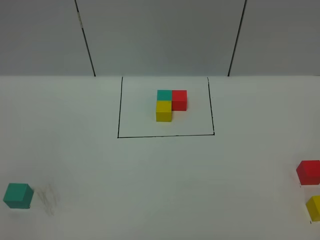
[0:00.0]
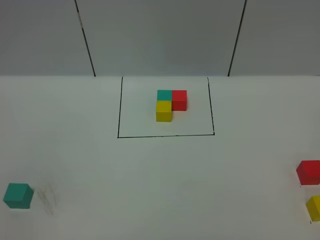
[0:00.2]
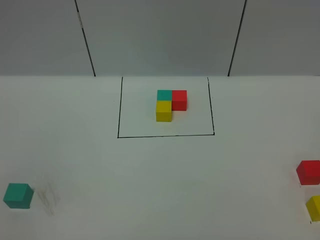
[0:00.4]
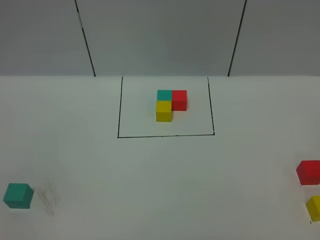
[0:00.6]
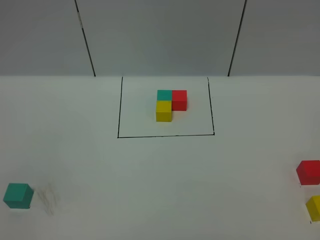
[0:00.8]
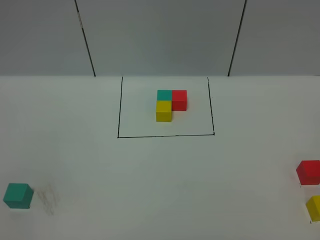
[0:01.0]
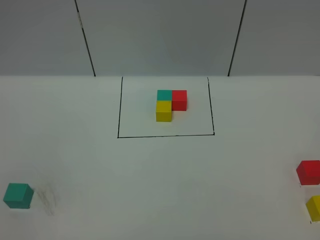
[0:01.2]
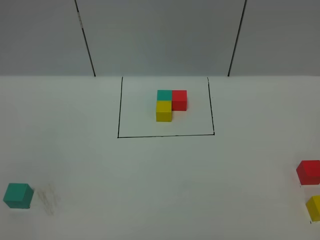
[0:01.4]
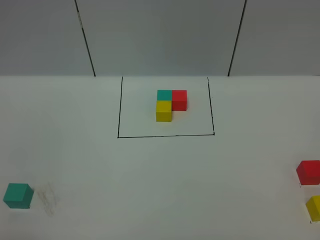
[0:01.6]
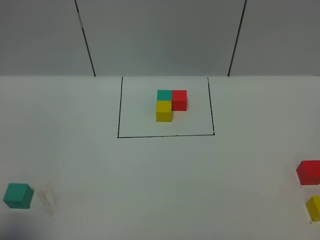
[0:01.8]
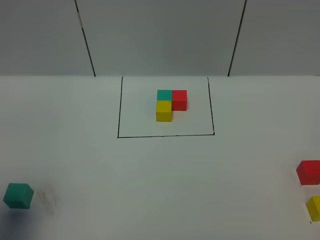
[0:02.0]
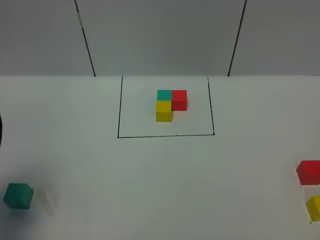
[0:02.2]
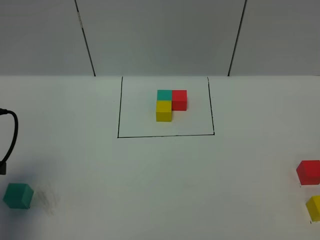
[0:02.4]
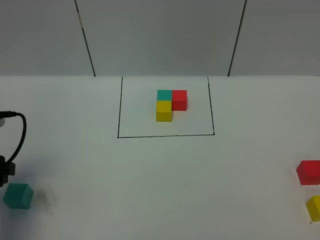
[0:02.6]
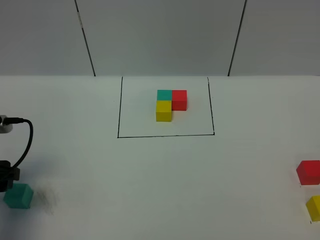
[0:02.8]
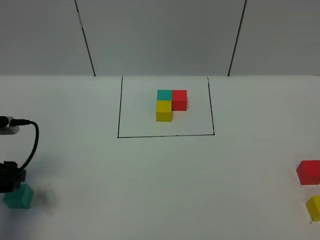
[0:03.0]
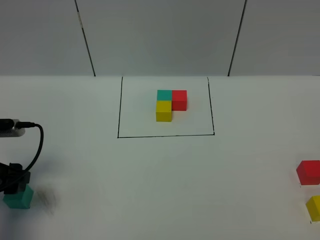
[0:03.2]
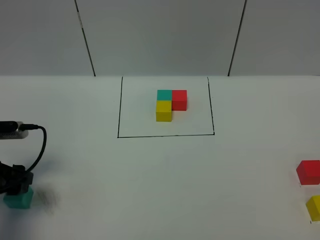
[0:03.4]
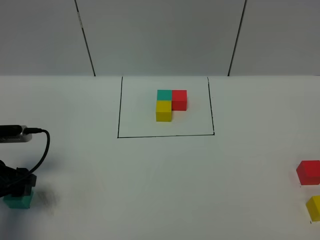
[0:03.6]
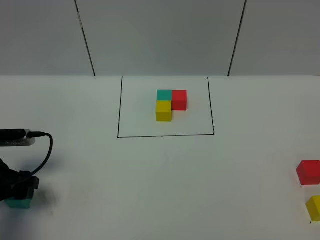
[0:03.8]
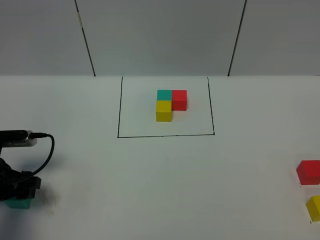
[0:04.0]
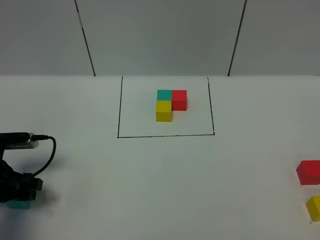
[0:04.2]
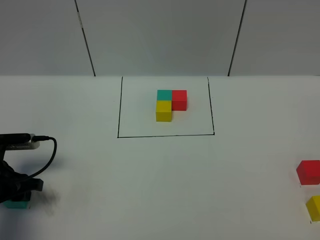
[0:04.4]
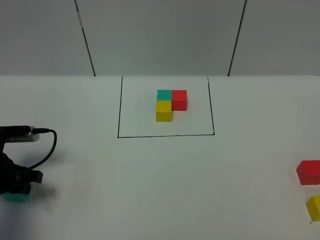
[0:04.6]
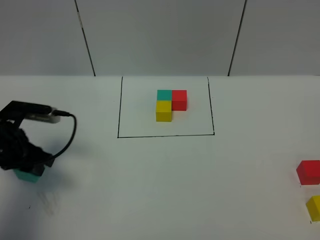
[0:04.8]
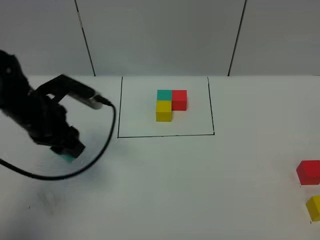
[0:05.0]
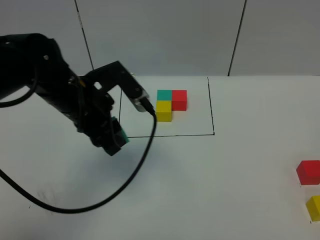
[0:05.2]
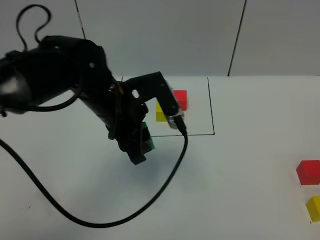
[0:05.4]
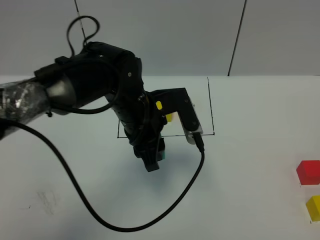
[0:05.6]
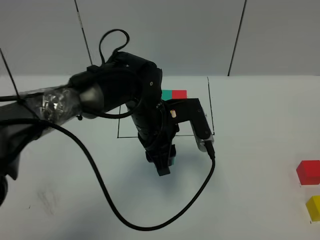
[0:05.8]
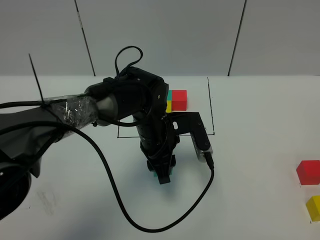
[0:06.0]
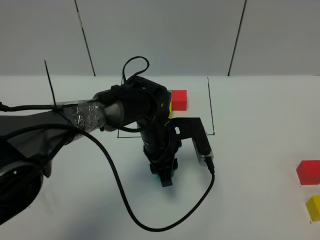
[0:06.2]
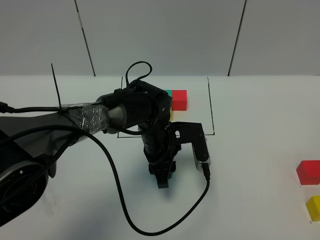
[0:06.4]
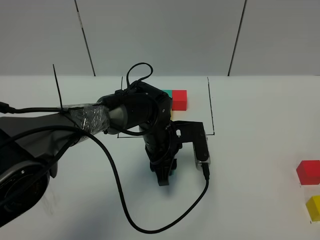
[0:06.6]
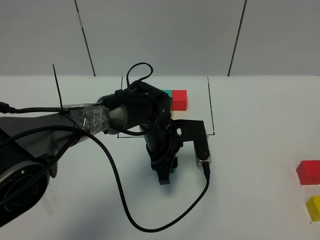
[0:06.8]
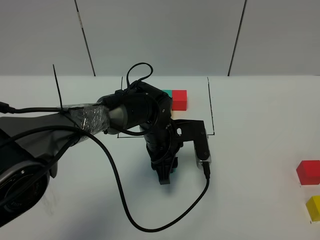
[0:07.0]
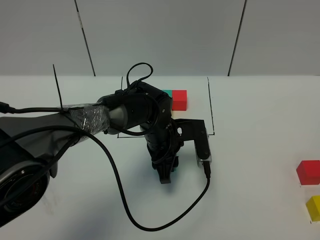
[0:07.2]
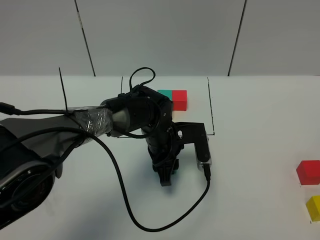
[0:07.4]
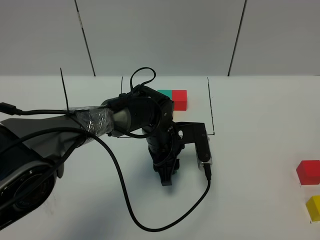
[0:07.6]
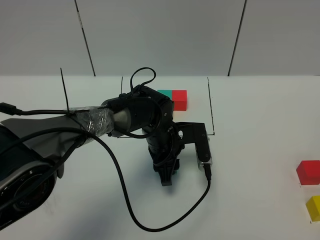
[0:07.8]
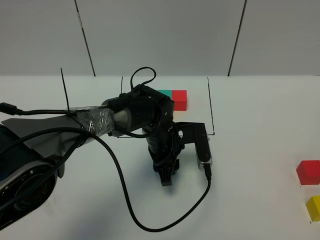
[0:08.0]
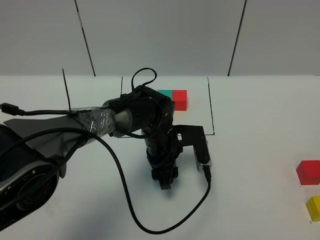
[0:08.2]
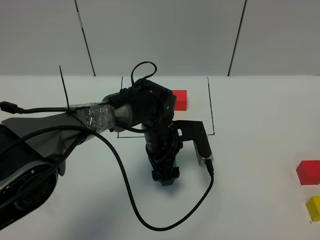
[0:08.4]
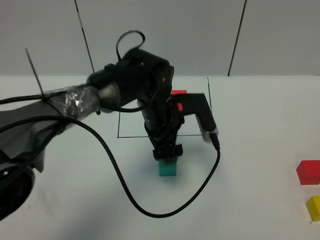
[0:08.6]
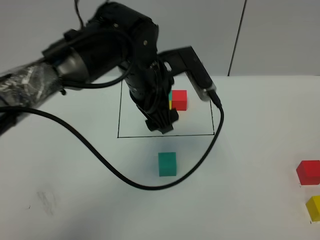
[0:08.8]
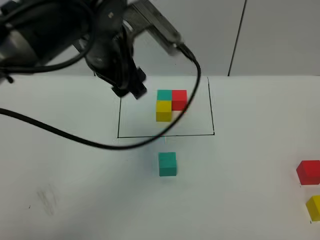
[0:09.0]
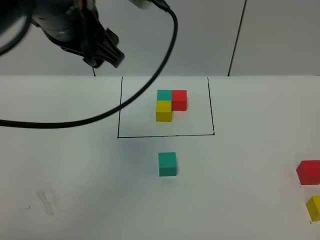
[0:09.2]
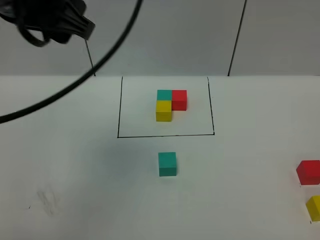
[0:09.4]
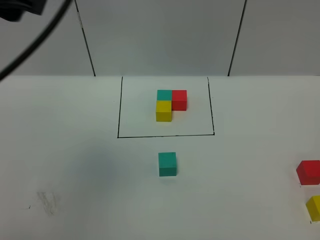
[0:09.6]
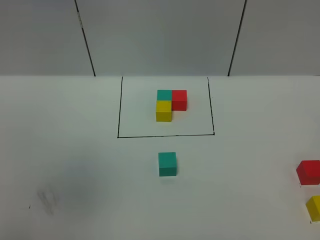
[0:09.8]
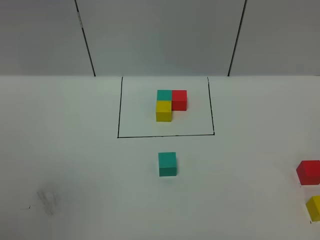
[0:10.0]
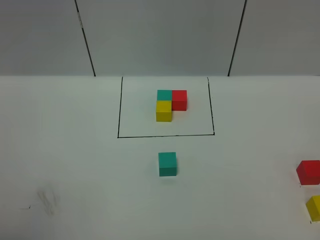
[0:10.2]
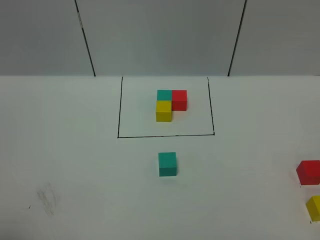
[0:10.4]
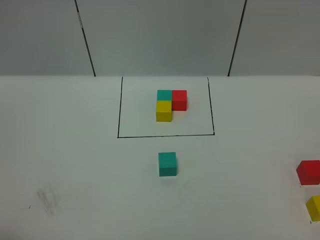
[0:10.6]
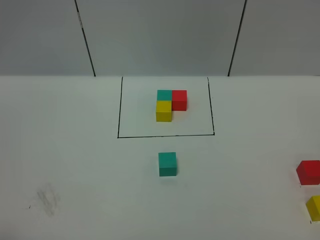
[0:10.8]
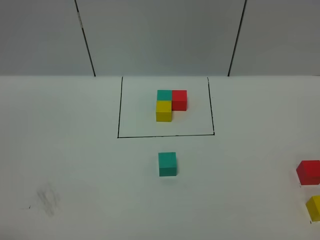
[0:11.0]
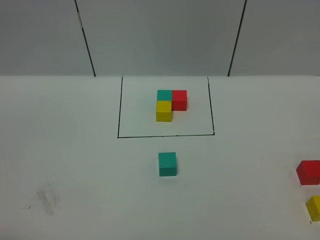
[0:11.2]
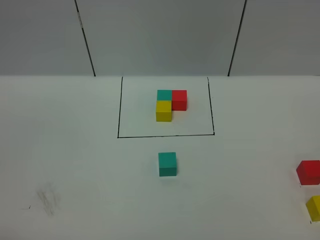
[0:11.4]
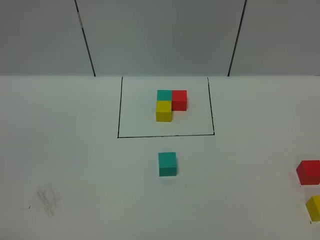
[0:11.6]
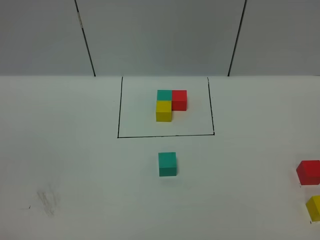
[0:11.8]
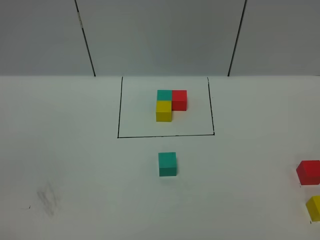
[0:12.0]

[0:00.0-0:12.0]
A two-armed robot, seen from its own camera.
Task of the whole recording: According to the building block template in front, assemble the scattered blocks together.
Step, 0:02.2 to 0:08.6: Put the green cube in the center of the table.
0:01.6 to 0:03.0: The left gripper is displaced forward and downward by roughly 25 cm.
0:03.0 to 0:04.4: The left gripper shifts roughly 5 cm downward, and closes its fingers.
0:04.4 to 0:06.0: The left gripper travels to the right by some 30 cm.
0:06.0 to 0:07.6: The left gripper changes place by roughly 5 cm.
0:07.6 to 0:09.0: The left gripper heads upward, covering about 25 cm, and opens.
0:09.0 to 0:10.4: The left gripper is displaced backward, to the left and upward by roughly 40 cm.

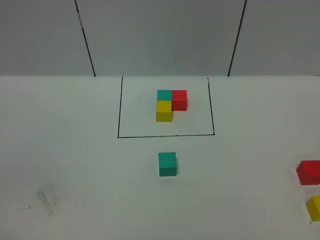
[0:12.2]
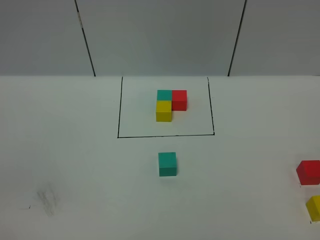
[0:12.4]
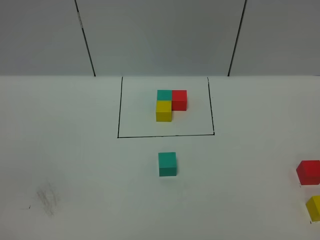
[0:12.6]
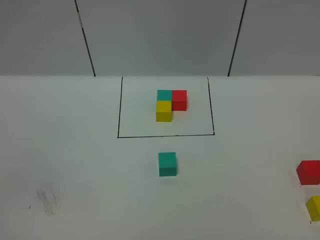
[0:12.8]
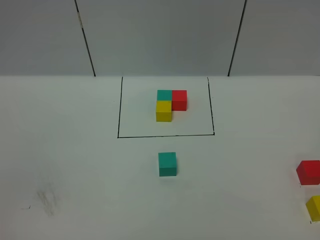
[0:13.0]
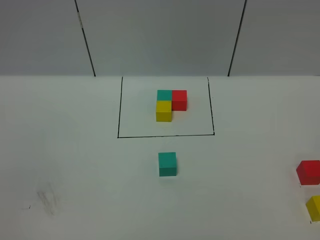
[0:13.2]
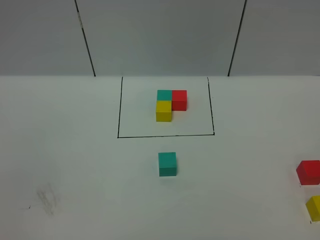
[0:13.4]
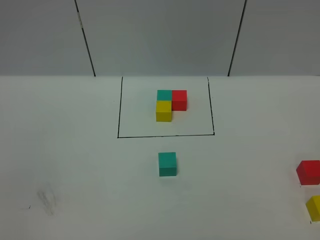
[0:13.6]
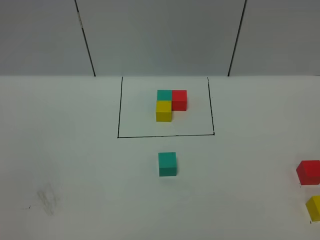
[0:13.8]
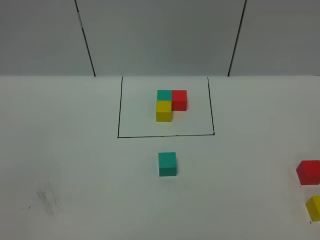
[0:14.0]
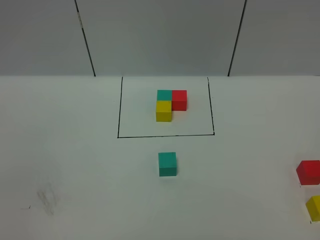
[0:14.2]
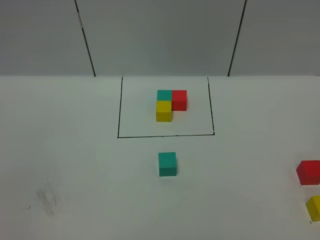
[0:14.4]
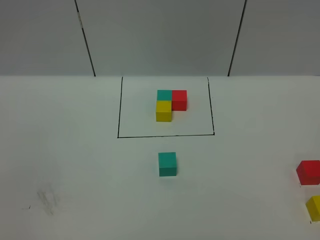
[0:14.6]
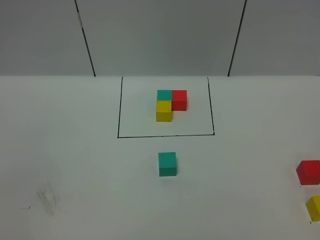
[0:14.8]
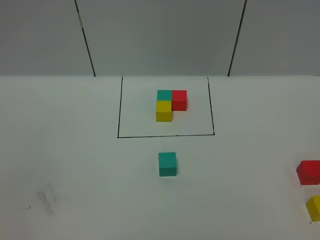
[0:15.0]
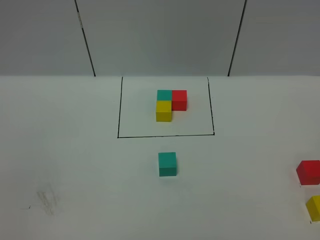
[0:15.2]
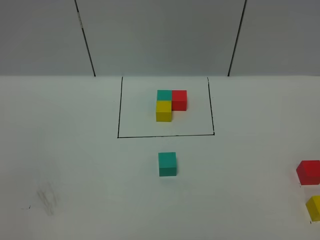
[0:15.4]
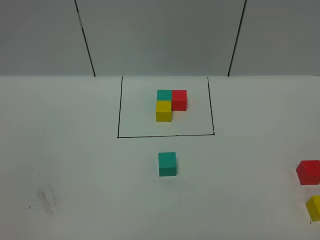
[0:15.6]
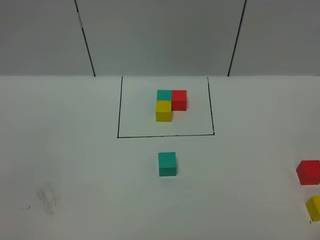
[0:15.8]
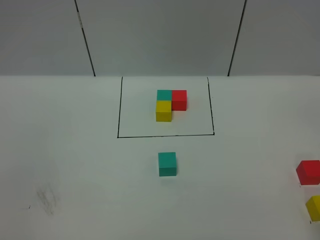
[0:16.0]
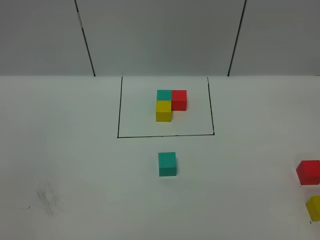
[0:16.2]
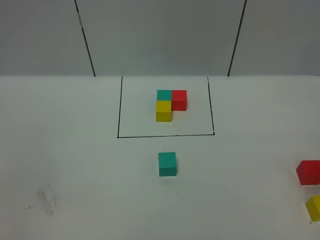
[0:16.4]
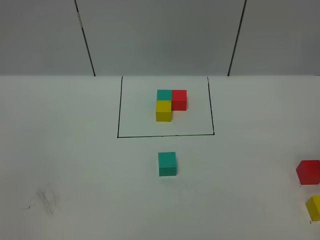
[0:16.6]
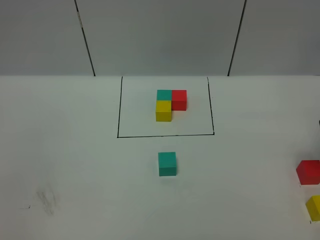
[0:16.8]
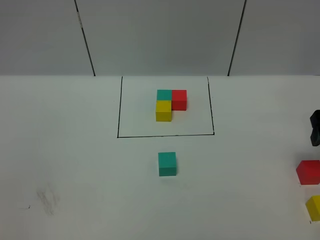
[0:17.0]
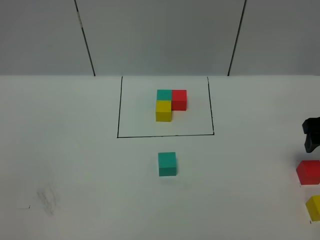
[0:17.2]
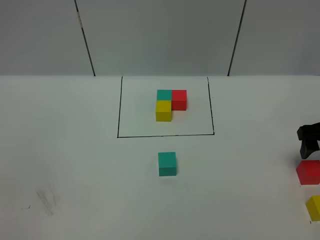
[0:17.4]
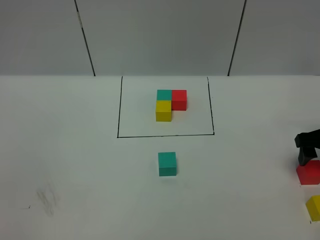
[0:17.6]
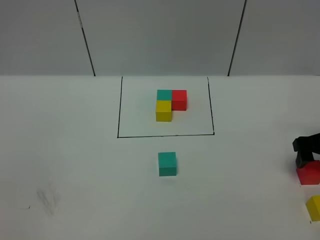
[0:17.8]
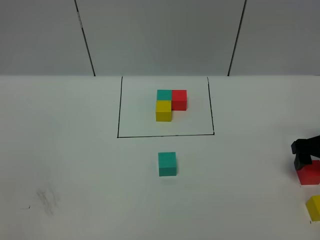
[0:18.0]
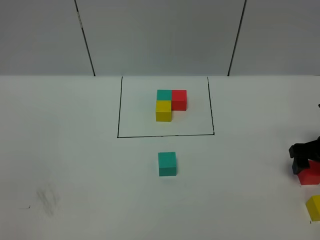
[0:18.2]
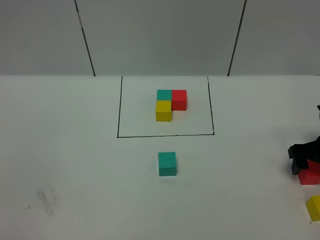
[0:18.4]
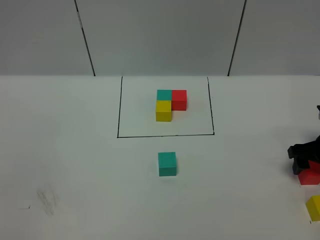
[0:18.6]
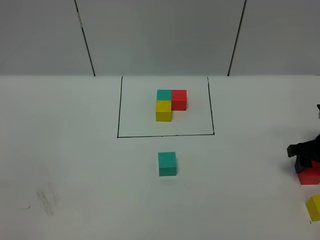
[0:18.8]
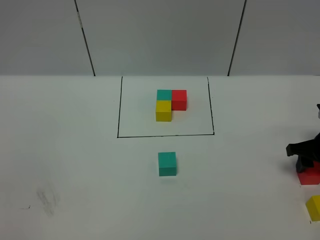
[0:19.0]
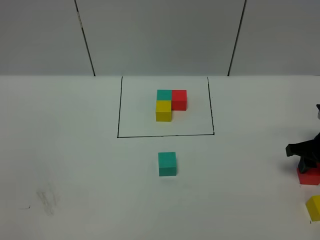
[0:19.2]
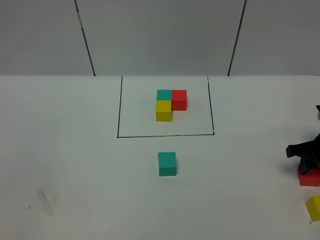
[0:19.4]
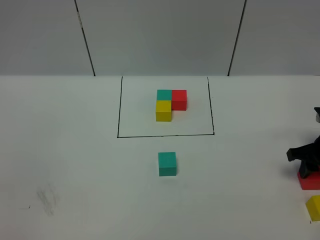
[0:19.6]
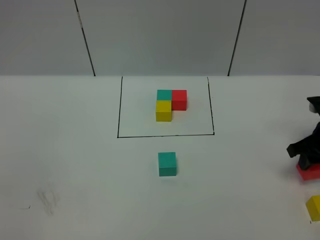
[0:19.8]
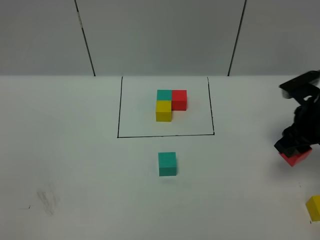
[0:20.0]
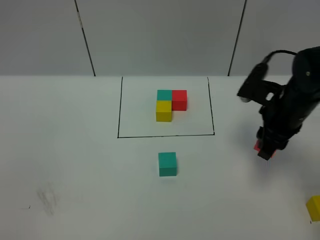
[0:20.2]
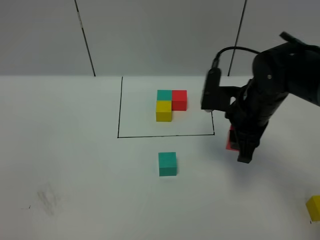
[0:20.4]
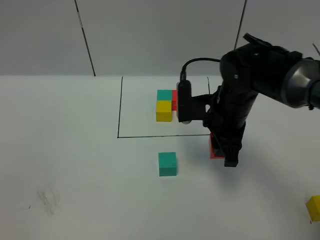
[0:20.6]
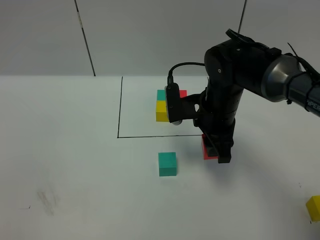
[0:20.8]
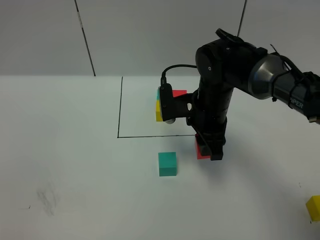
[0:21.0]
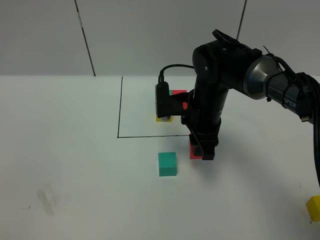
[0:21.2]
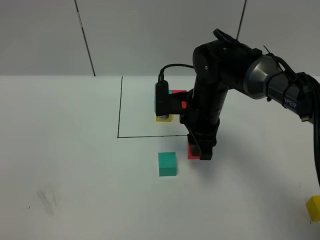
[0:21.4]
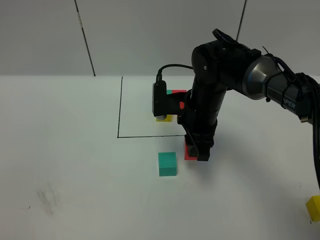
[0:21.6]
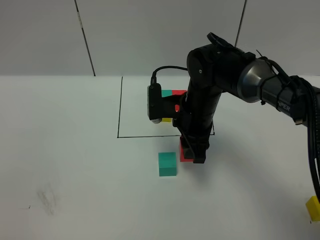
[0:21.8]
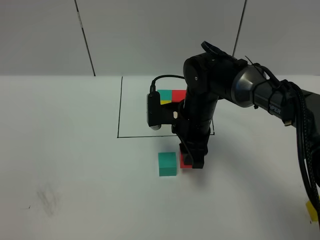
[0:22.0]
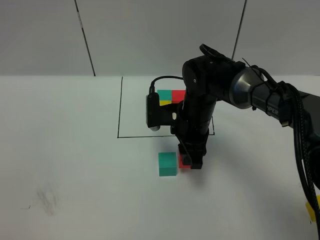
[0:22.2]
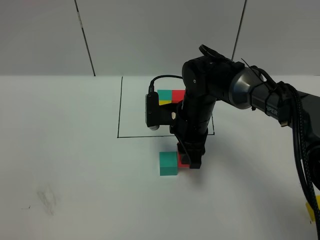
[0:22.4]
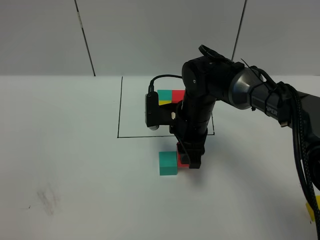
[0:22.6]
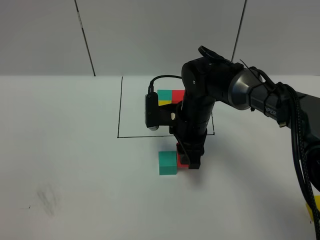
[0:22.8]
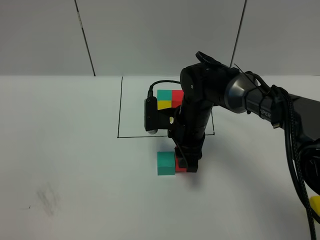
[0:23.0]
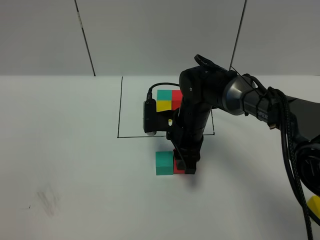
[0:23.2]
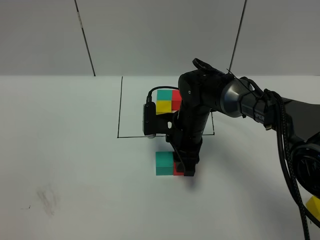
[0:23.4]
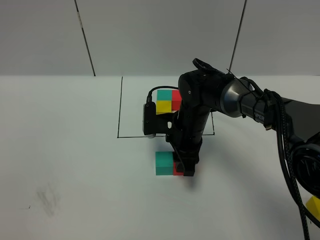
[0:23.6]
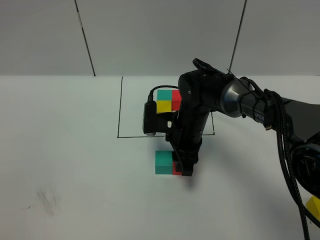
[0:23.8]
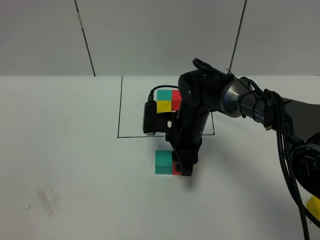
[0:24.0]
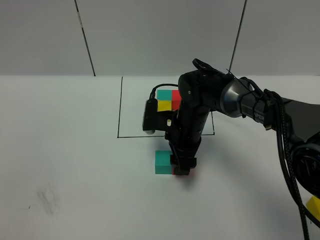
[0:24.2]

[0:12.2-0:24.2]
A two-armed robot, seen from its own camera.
Task of the whole recording: According to the building block template in front, assemble the scattered blocks together.
0:13.8 to 0:15.2: Both grippers stay about where they are.
0:16.6 to 0:18.2: The right gripper moves downward, approximately 20 cm.
0:18.2 to 0:19.8: The right gripper closes its fingers.
0:19.8 to 0:21.2: The right gripper goes approximately 25 cm to the left.
0:21.2 to 0:22.6: The grippers stay close to where they were, moving slightly.
0:22.6 to 0:24.2: The grippers move only a little.
